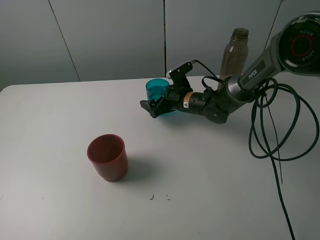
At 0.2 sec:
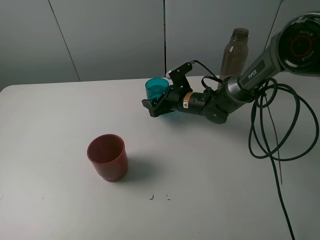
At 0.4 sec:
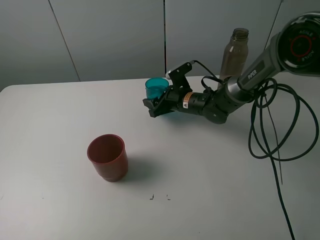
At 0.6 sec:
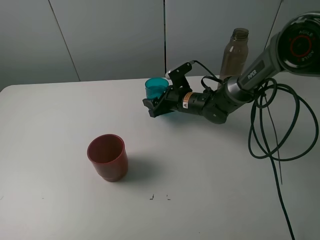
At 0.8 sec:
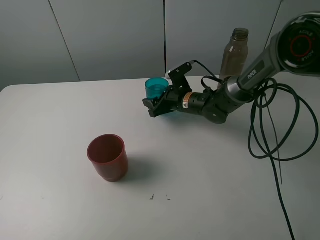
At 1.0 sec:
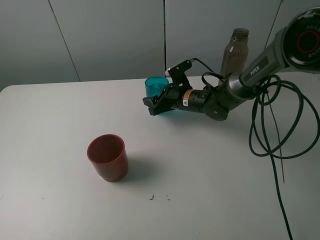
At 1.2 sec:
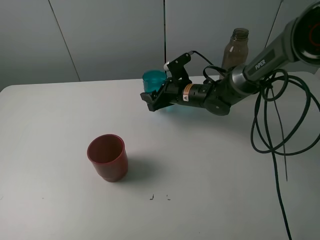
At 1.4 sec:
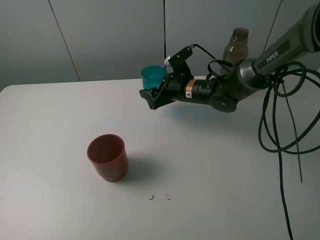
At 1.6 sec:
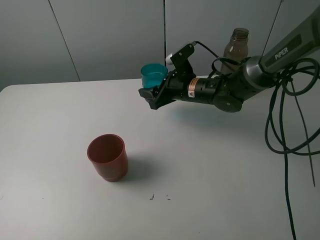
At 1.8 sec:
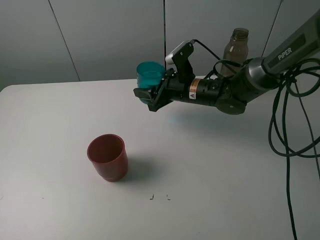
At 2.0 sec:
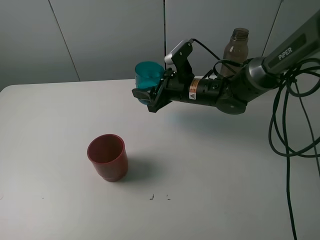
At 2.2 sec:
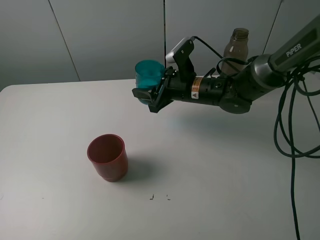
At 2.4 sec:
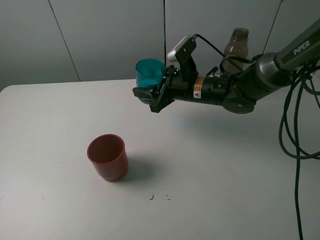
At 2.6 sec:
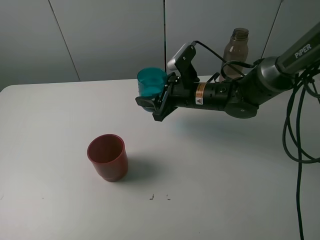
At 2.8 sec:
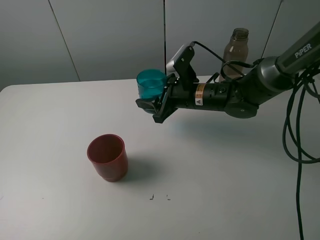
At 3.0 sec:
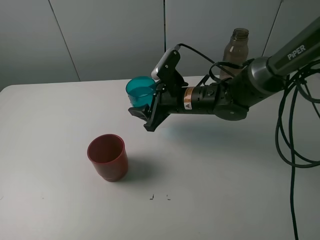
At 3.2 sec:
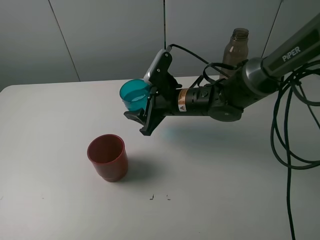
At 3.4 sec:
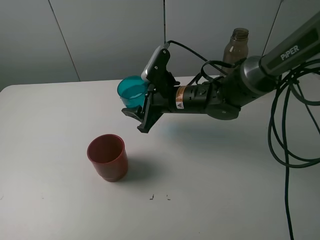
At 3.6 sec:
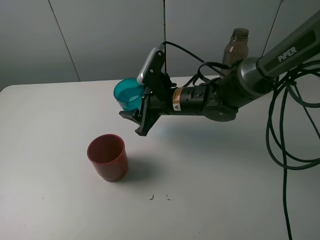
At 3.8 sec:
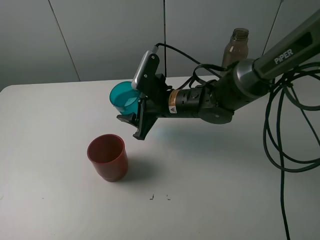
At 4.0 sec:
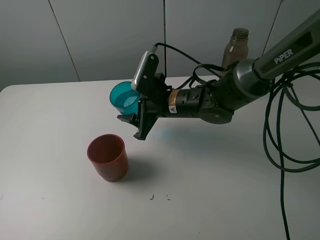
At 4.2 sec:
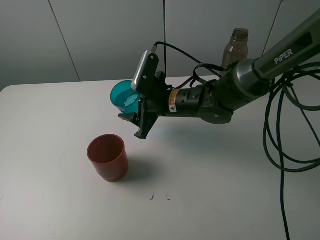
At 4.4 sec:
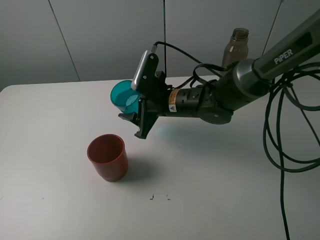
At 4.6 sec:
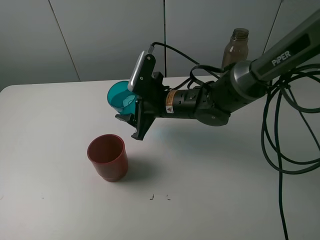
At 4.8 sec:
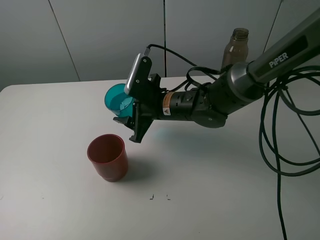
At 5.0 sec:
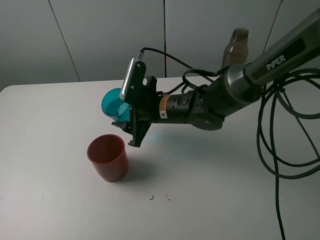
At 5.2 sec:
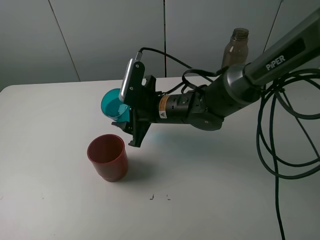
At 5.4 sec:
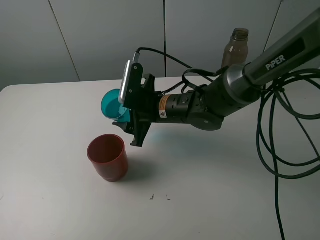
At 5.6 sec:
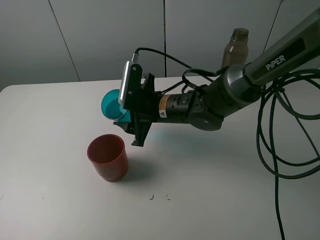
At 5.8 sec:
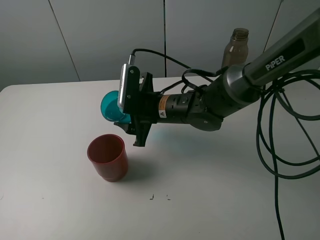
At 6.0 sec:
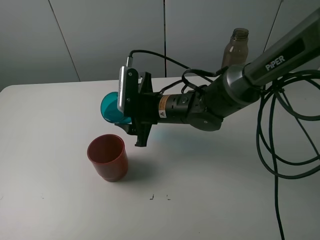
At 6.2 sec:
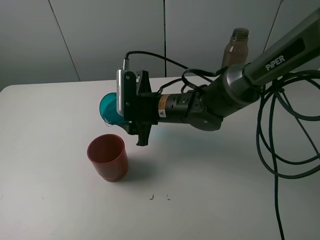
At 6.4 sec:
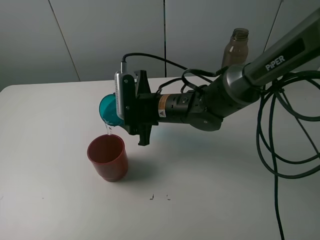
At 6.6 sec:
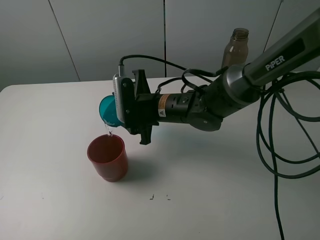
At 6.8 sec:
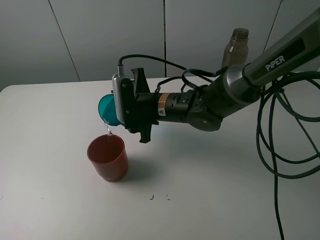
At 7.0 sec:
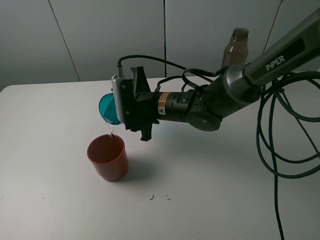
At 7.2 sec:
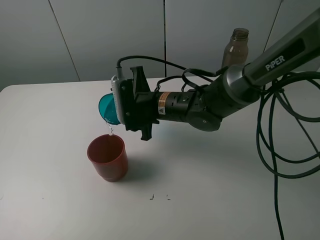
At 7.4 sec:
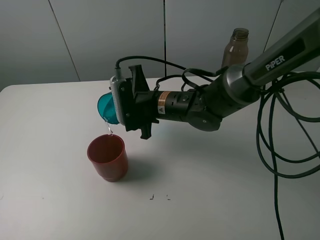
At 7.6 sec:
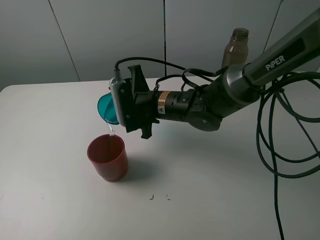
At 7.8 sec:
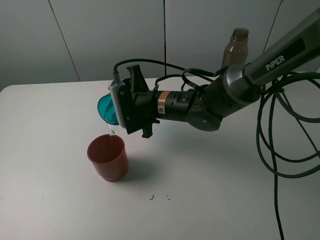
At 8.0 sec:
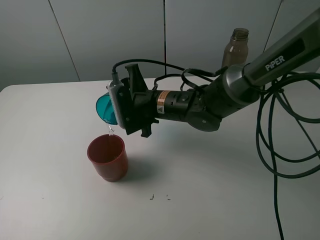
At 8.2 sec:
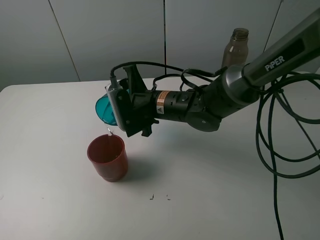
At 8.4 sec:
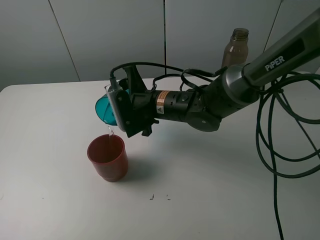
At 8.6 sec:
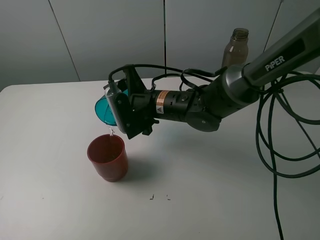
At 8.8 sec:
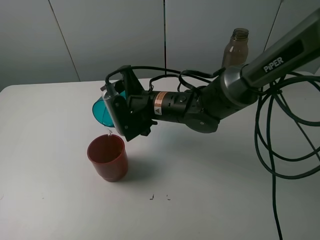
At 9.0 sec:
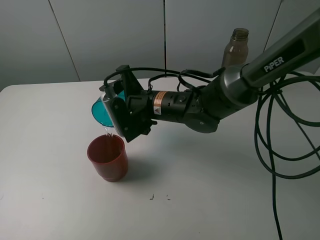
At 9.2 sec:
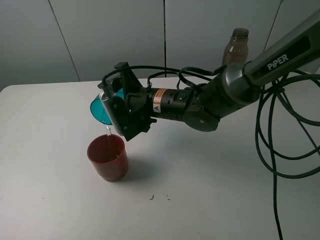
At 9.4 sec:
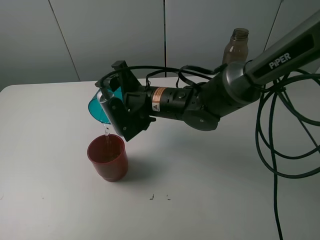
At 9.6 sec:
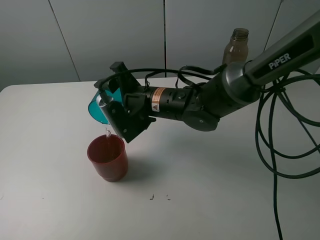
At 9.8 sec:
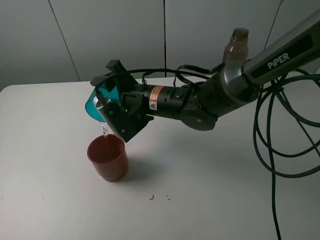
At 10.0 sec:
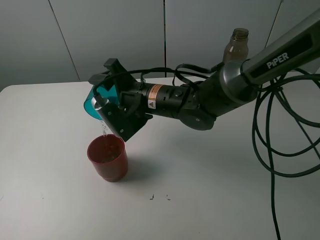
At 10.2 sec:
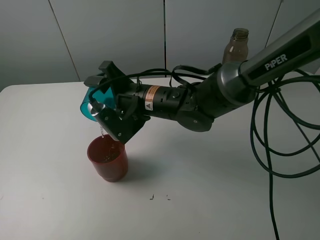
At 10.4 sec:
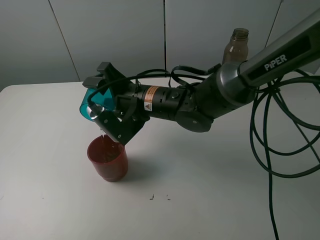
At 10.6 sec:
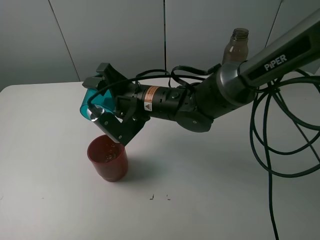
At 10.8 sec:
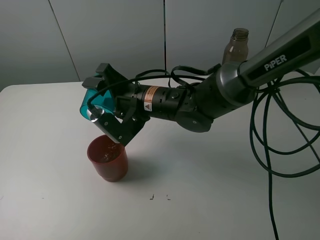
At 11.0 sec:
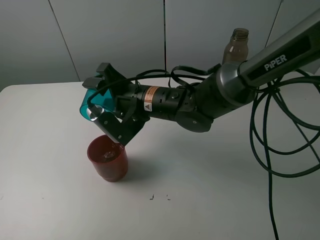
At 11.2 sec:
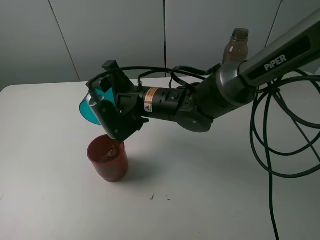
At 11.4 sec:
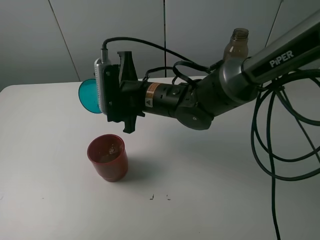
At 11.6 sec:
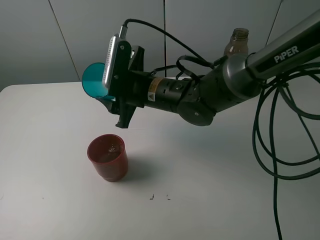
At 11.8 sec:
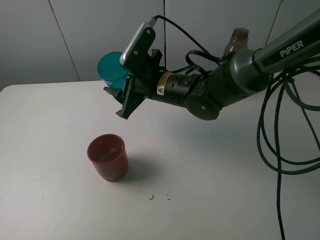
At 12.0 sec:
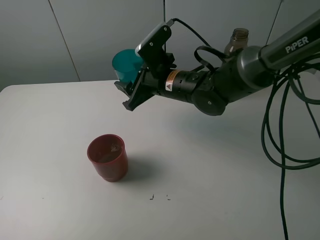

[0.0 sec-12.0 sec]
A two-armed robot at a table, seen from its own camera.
Task of the whole recording: pick up the bottle and pour water into the cup, then pick up the cup containing water and pour it into another cup.
Step, 0.6 sec to 10.6 sec: Pour water from blue cup to red cup with the right gripper.
0.0 sec to 1.6 sec: The right gripper goes approximately 5 cm upward, and closes its fingers.
1.6 sec to 3.0 sec: The right gripper heads backward, covering roughly 5 cm.
3.0 sec to 4.4 sec: The grippers make only small movements.
7.6 sec to 9.0 sec: The grippers stay close to where they were, moving slightly.
9.0 sec to 10.4 sec: The grippers stay close to where they were, moving slightly.
10.4 sec to 12.0 sec: The right gripper ends up about 5 cm from where it was.

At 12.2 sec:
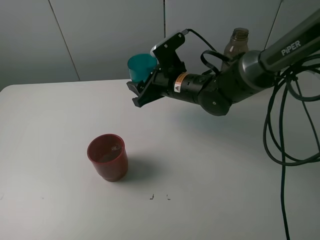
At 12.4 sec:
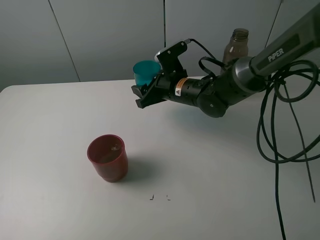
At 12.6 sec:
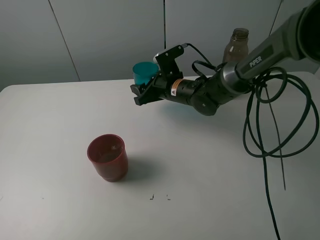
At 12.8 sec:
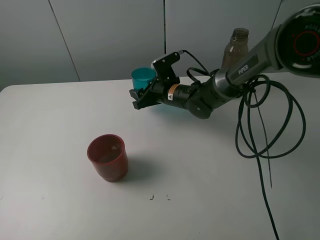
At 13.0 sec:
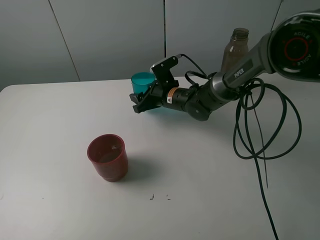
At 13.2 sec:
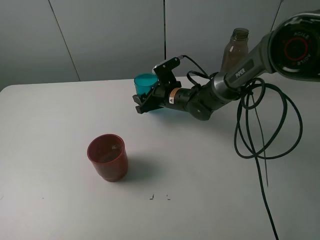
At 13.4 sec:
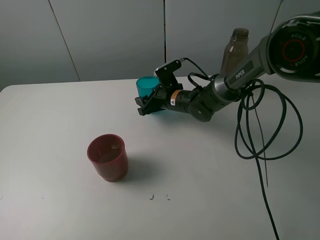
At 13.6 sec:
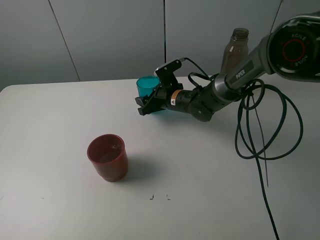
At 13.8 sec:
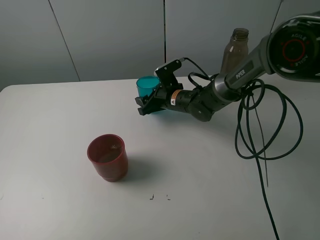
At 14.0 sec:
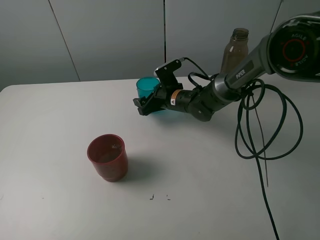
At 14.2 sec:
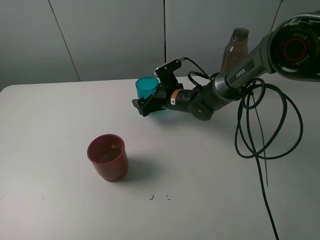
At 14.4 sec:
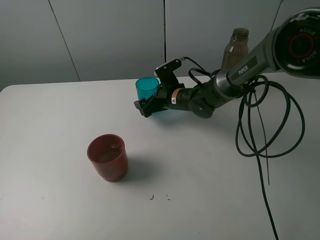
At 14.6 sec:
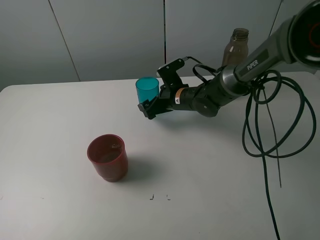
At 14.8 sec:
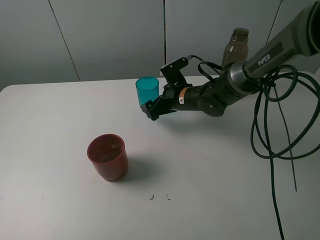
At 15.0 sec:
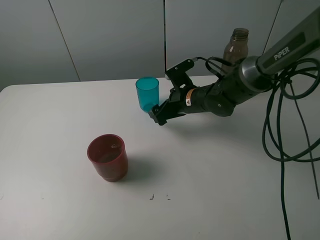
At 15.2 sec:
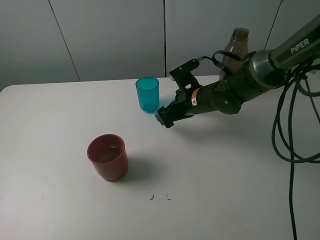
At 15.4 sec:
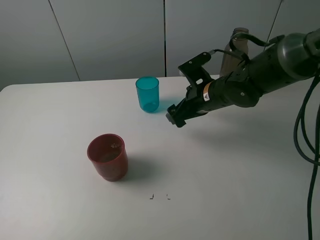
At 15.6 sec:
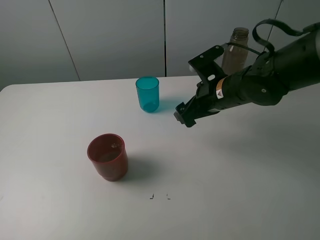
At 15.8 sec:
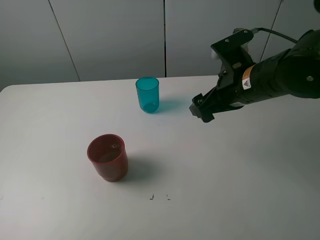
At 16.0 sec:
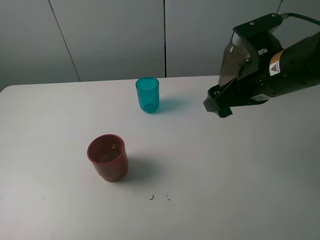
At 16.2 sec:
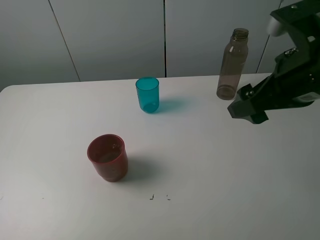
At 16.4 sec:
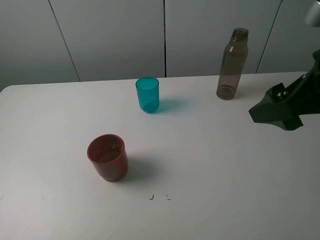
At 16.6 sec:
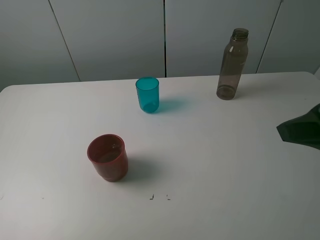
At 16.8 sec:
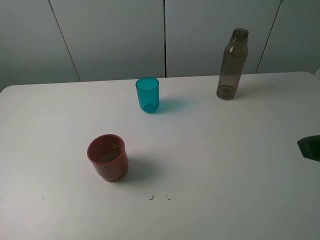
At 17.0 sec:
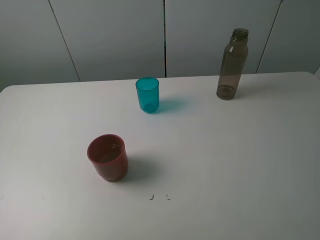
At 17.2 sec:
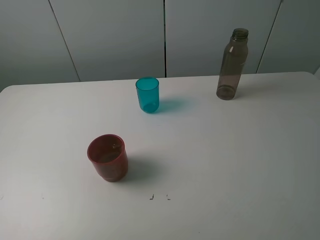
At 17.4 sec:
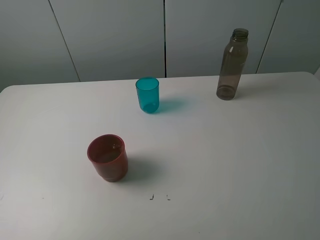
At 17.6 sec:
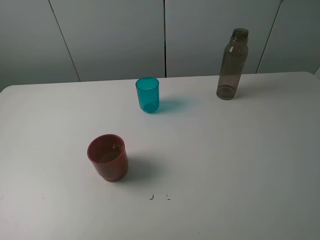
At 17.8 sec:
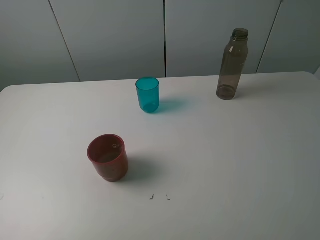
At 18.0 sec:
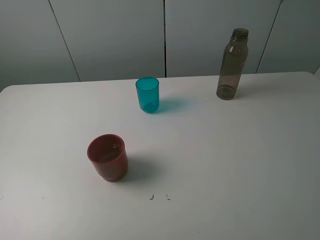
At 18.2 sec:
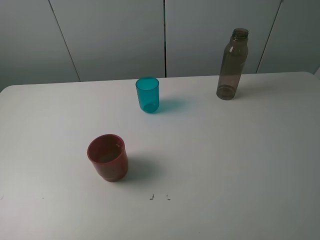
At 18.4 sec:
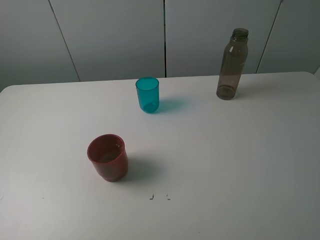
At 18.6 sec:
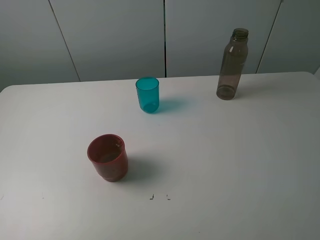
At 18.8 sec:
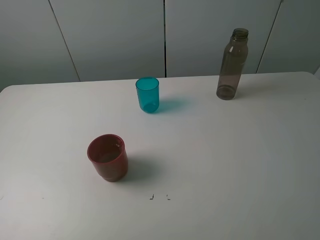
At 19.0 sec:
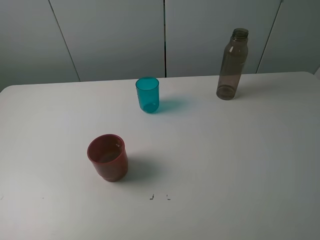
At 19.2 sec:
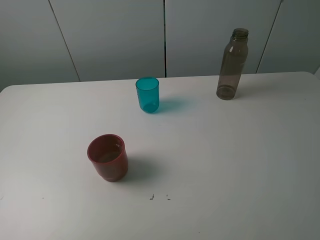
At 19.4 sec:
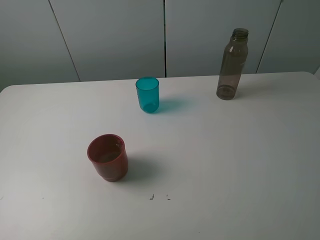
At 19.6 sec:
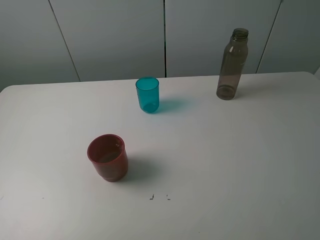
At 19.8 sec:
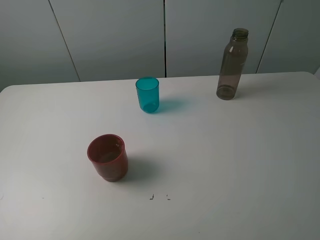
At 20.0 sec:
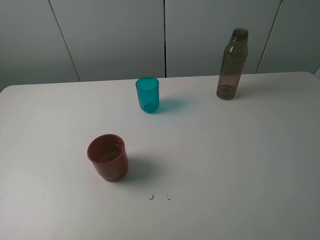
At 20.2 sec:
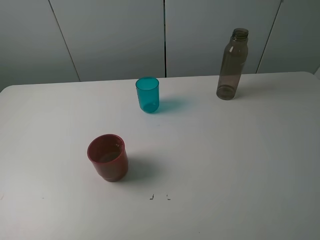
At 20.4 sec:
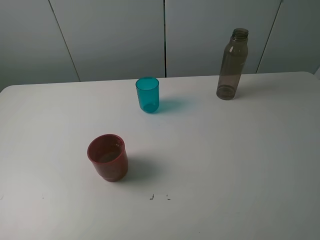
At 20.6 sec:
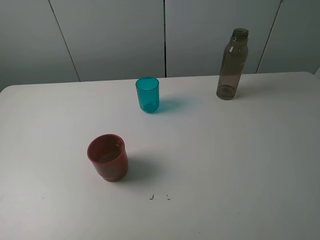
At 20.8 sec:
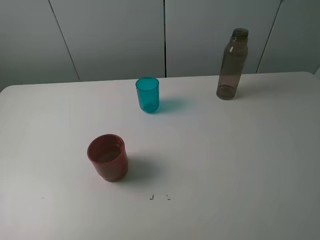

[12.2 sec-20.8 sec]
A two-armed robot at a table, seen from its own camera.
Task of the whole recording: pick up the bottle and pour water into the cup, then pick up the cup containing water and pour it into another cup.
Step, 12.2 sec to 14.2 sec: Place the blue cup with the right gripper.
12.2 sec to 13.6 sec: The right gripper moves downward and forward, some 10 cm.
13.6 sec to 15.0 sec: The right gripper ends up roughly 5 cm from where it was, and opens up.
15.0 sec to 16.6 sec: The right gripper travels backward, upward and to the right by roughly 35 cm.
16.6 sec to 18.0 sec: The right gripper is displaced backward and to the right by about 10 cm.
19.4 sec to 20.8 sec: Neither gripper changes place.
